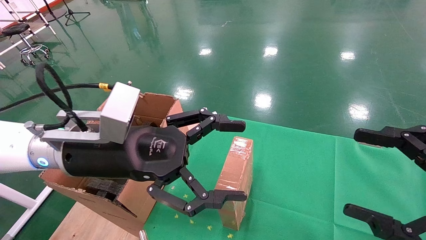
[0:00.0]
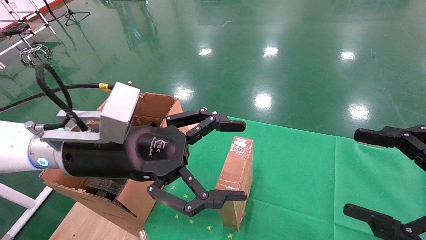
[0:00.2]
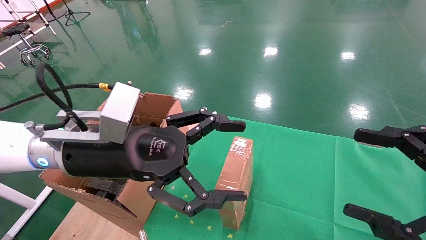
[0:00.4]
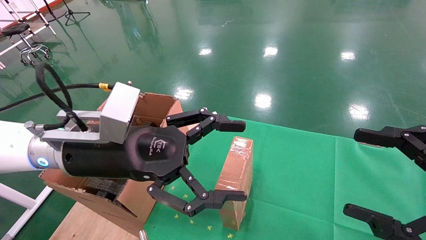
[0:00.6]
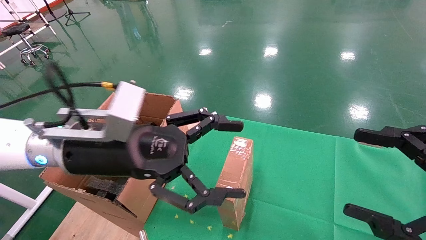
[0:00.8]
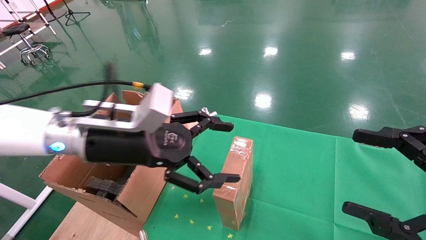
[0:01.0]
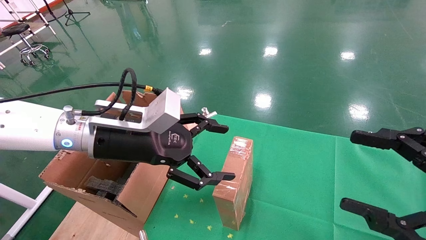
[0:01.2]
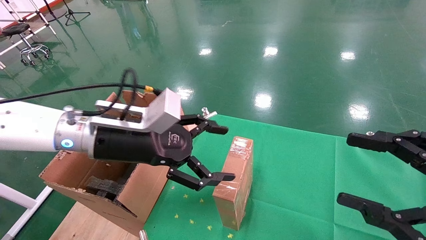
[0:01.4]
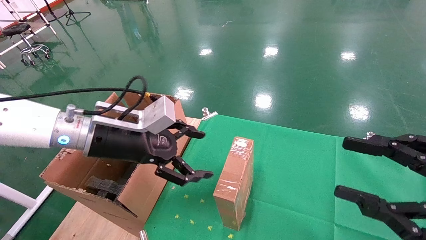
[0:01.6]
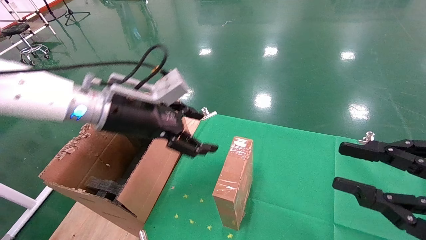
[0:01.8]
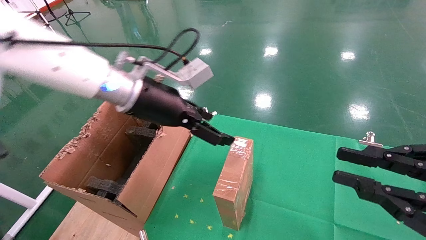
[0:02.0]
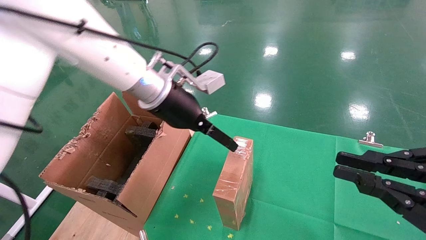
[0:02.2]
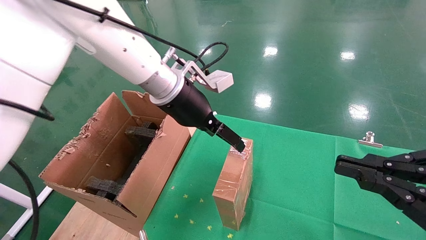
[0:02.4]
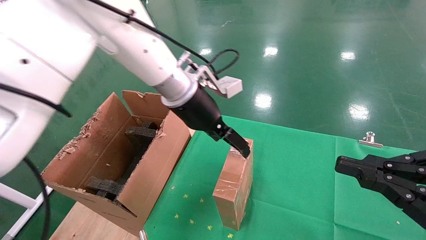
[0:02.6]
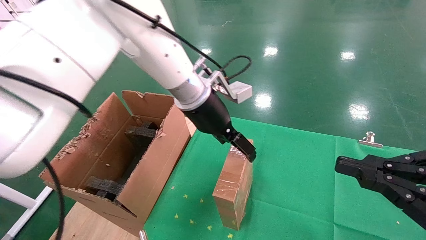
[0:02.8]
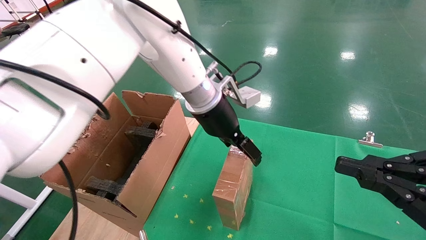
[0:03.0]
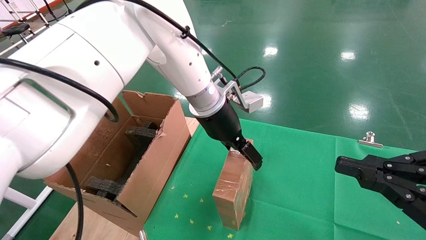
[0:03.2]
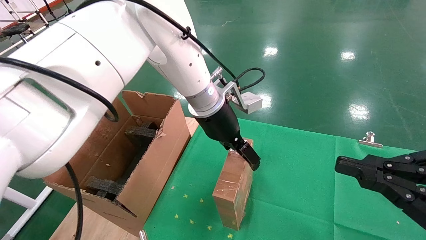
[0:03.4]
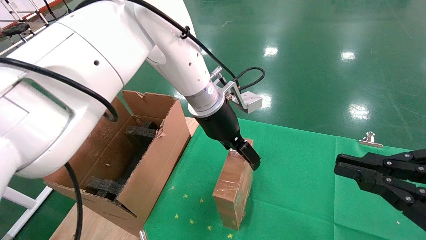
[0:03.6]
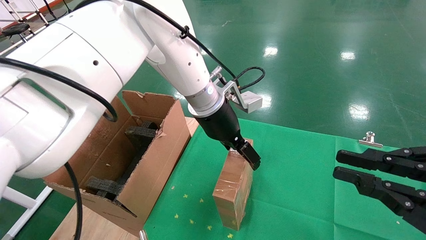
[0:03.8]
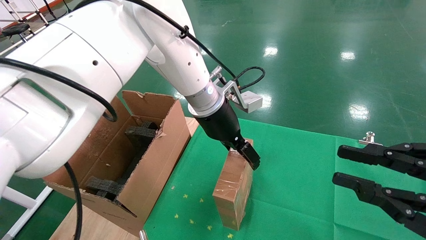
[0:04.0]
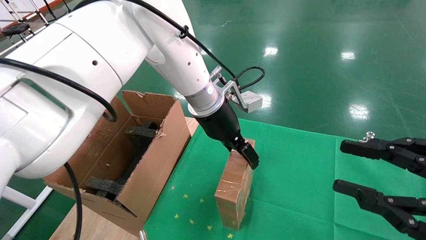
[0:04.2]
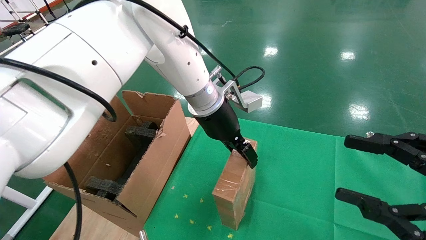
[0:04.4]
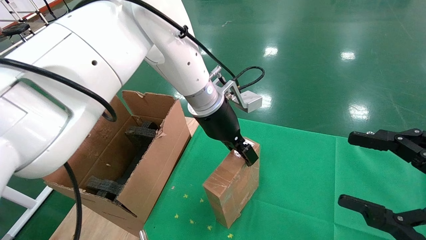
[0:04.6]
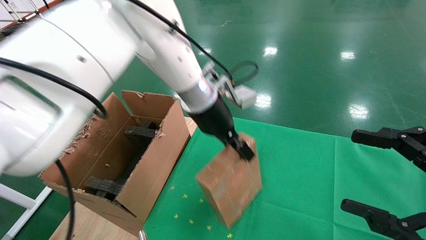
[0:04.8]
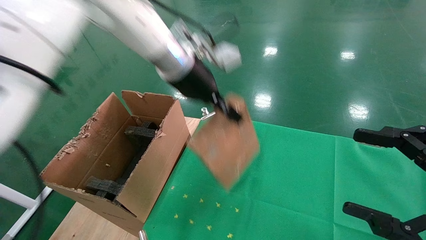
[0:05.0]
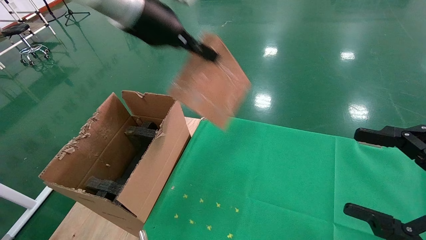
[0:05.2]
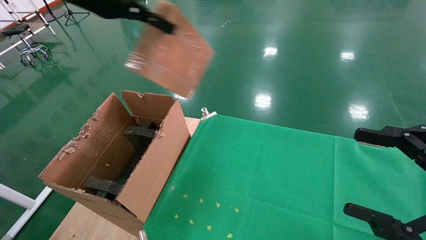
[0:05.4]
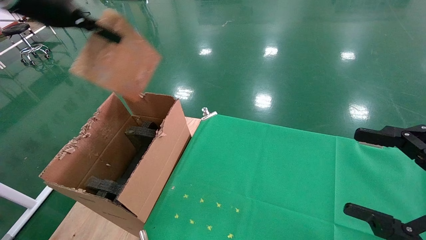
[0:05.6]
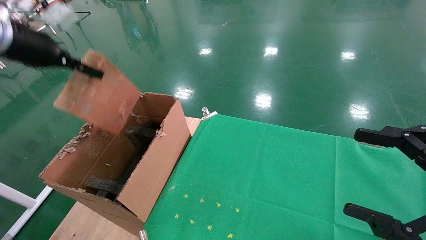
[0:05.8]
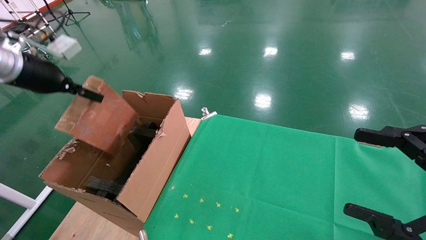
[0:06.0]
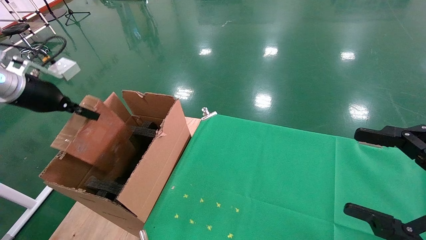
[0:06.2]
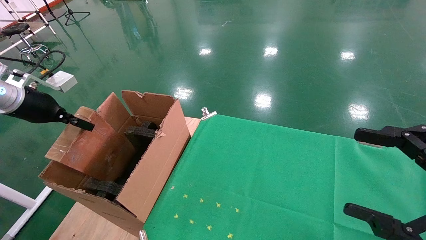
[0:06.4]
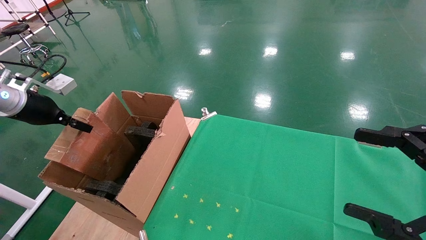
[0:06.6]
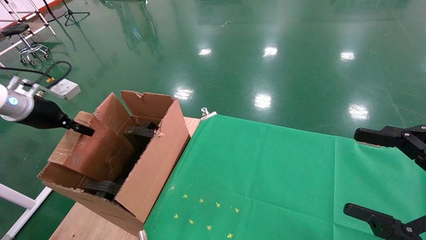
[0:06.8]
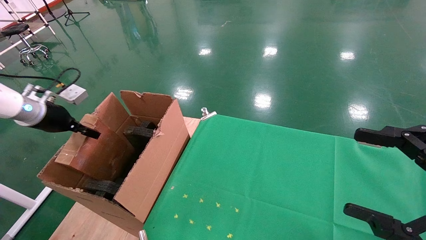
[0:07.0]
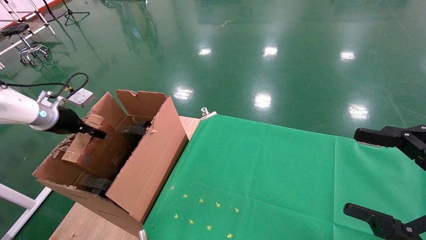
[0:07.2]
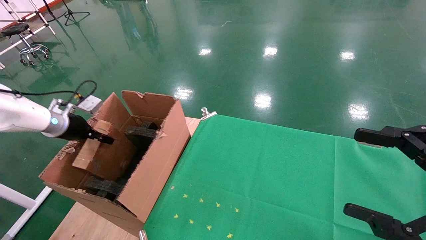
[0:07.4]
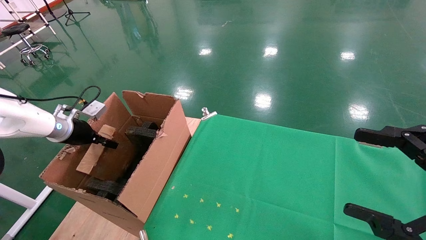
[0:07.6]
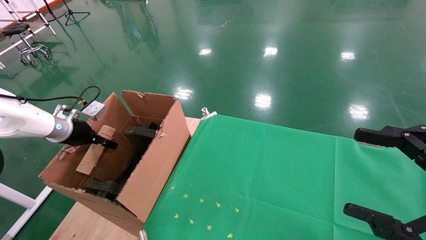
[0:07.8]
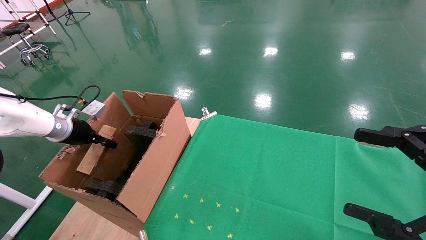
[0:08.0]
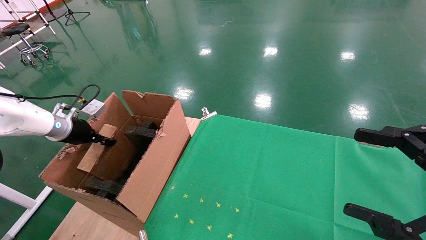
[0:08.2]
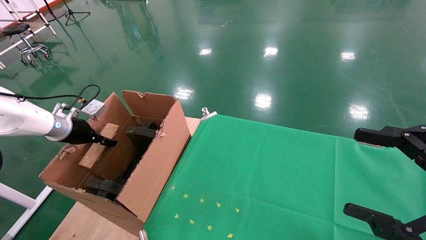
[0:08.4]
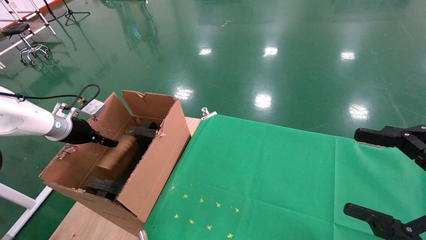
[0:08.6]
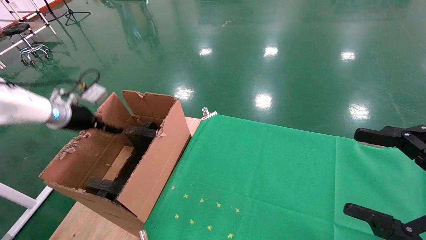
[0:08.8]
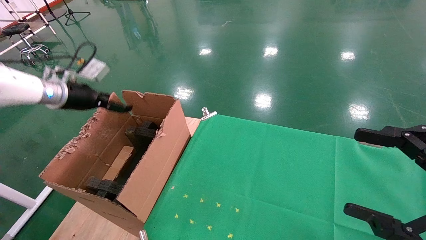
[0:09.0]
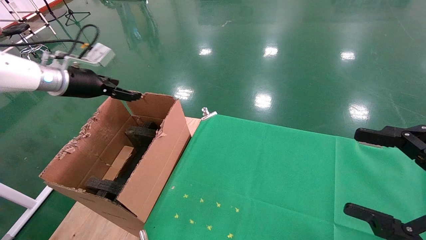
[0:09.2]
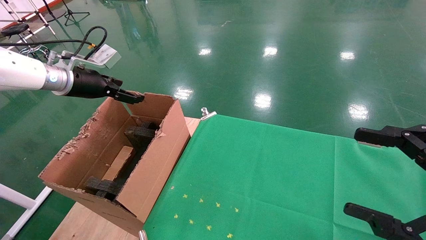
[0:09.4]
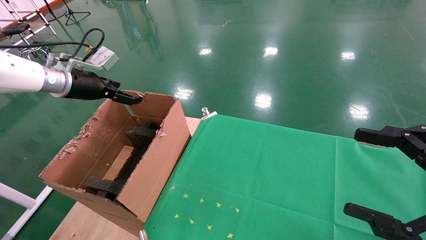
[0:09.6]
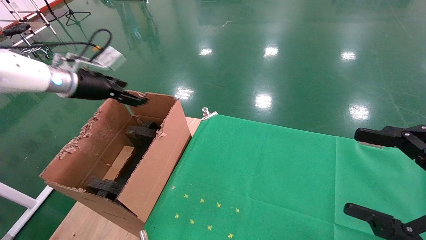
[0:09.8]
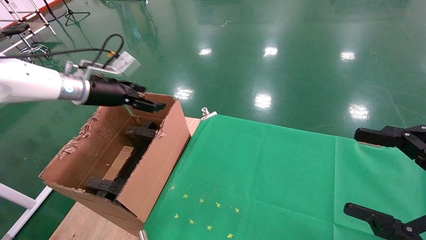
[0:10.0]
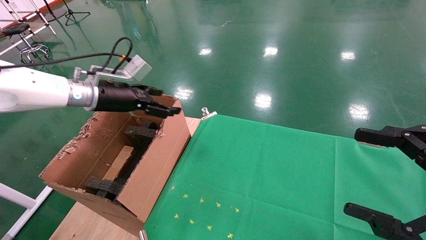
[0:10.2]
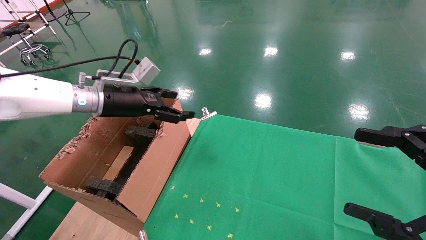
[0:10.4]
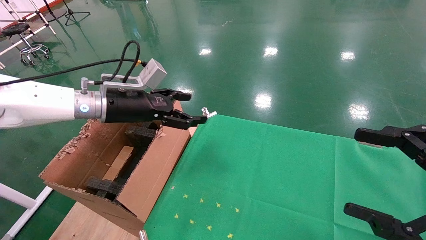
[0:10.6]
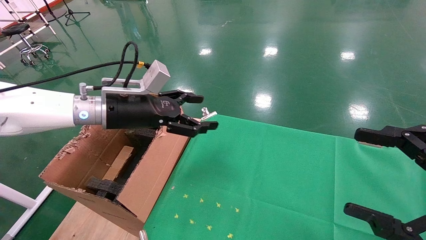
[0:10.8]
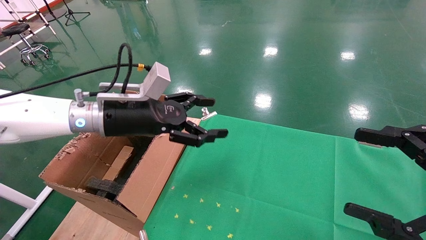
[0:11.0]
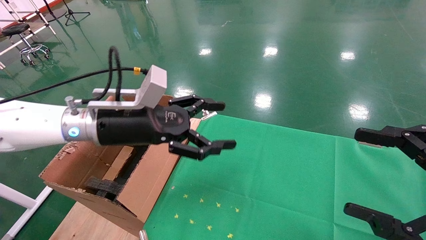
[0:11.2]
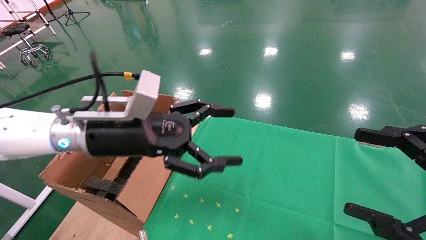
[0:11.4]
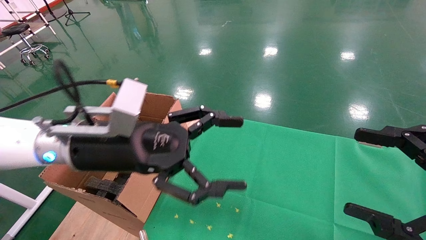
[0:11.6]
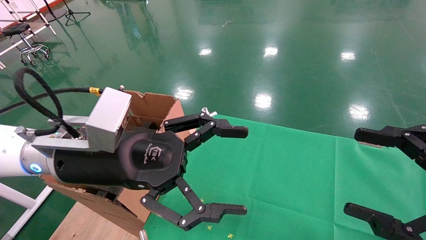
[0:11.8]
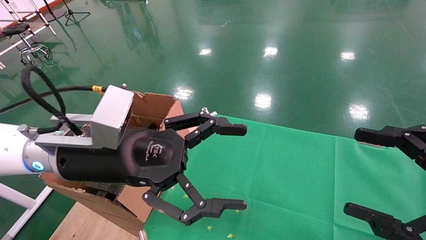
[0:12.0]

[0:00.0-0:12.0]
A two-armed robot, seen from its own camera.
Task of the whole recording: using a robotic arm to pick up a cardboard box and palace it the carton.
Step, 0:01.0 to 0:04.6: Pick up the mouse and the power cord paper box.
Step, 0:04.8 to 0:09.2: Place the mouse and the power cord paper box into the container.
0:00.0 to 0:01.6: The left gripper moves forward, approximately 5 cm.
0:01.6 to 0:03.0: The right gripper closes up, while the left gripper moves to the right and forward, about 20 cm.
0:03.0 to 0:04.4: The left gripper closes; the right gripper opens its fingers.
0:04.4 to 0:06.0: The left gripper moves to the left, about 35 cm, and closes its fingers. The right gripper opens.
0:06.0 to 0:07.6: The left gripper travels downward and forward by approximately 20 cm.
0:07.6 to 0:09.0: The left gripper shifts roughly 10 cm upward, and opens its fingers.
0:09.0 to 0:10.4: The left gripper moves to the right, roughly 15 cm.
0:10.4 to 0:12.0: The left gripper heads backward and to the right, covering some 20 cm.

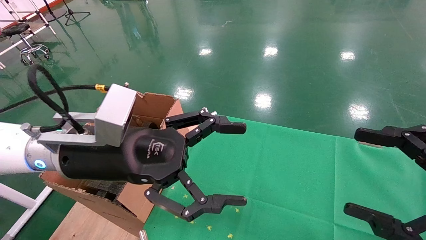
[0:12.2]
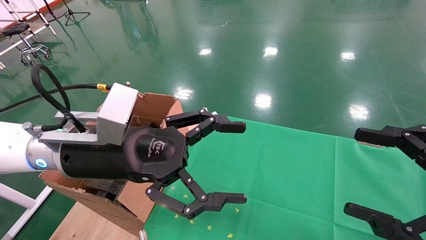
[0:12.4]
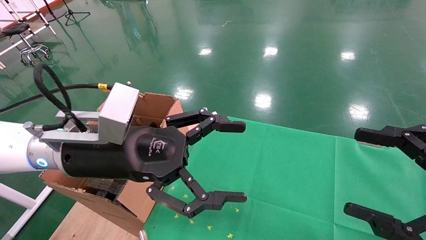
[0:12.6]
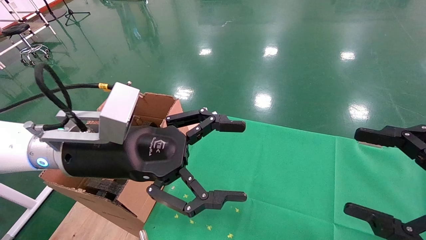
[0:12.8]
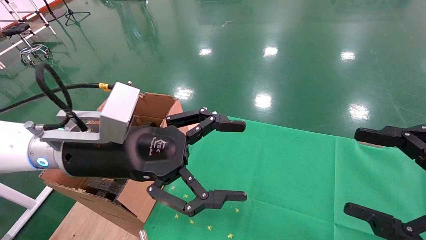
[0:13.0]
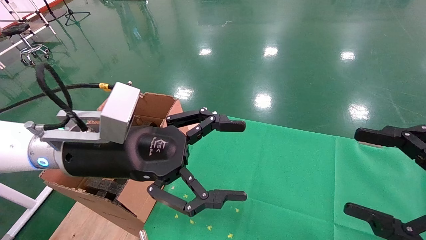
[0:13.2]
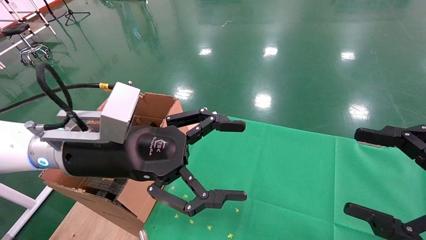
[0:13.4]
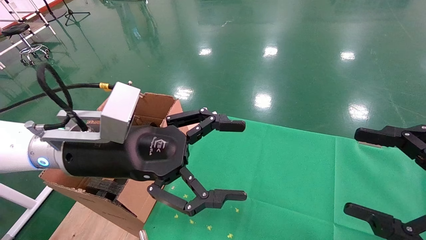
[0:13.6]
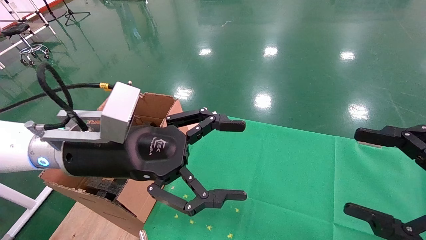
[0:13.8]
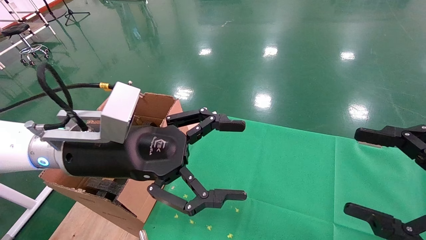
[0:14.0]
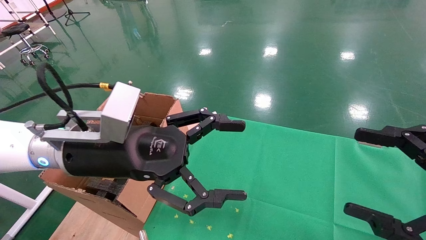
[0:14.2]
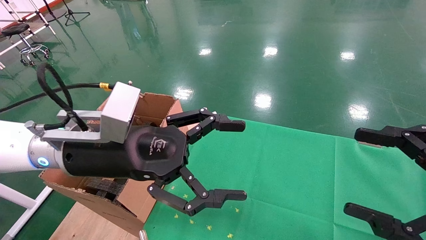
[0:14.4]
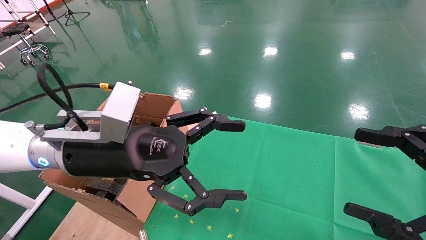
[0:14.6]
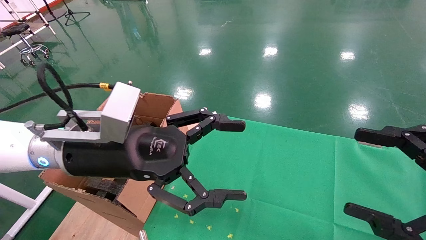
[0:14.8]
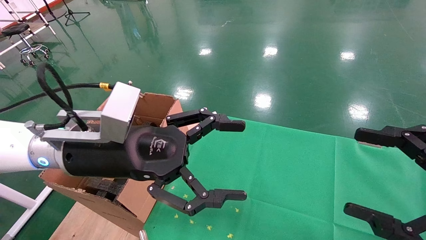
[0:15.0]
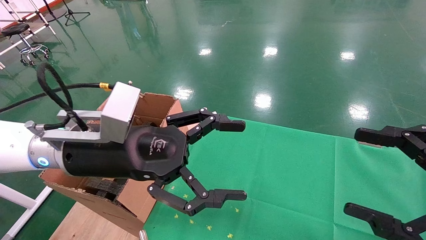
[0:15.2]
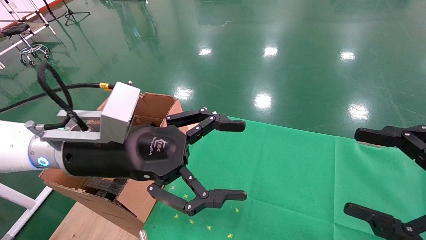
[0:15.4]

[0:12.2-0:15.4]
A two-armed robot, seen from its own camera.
Task of the whole recording: using a robotic arm to pick up a cardboard box and palace it the carton.
0:12.2 to 0:15.4: The two grippers keep their place.
